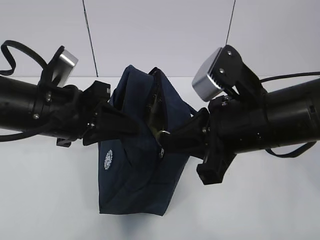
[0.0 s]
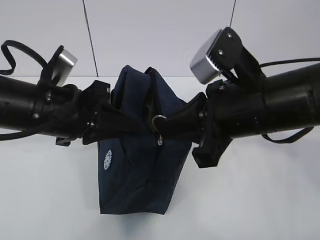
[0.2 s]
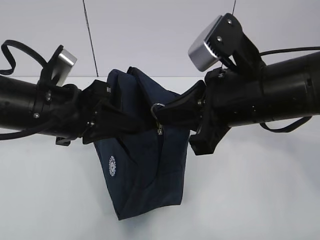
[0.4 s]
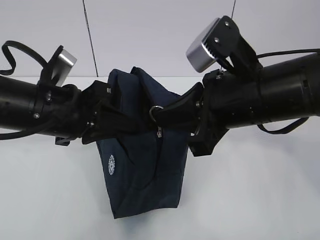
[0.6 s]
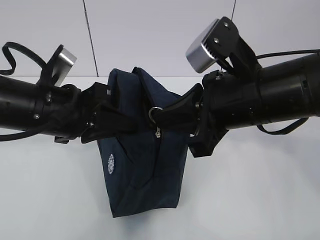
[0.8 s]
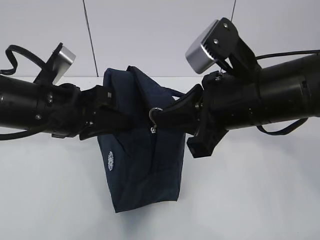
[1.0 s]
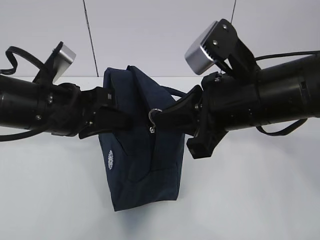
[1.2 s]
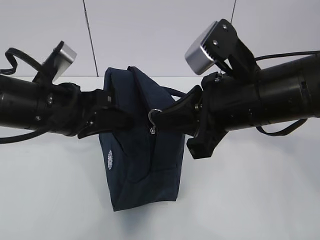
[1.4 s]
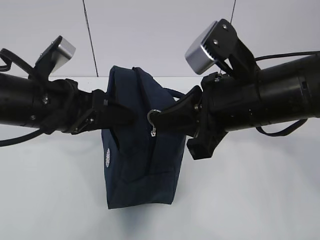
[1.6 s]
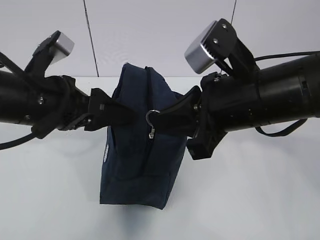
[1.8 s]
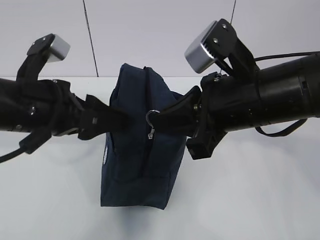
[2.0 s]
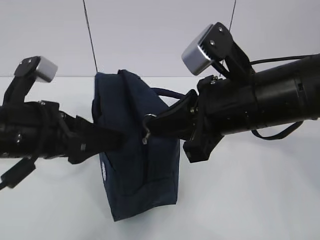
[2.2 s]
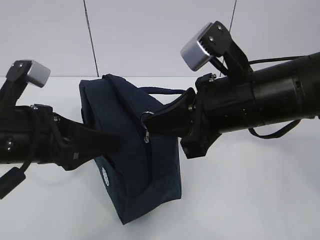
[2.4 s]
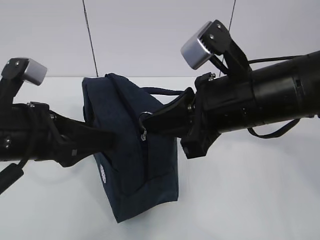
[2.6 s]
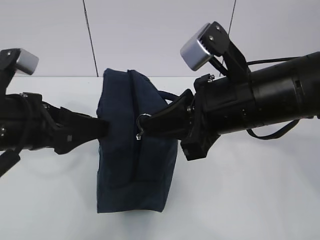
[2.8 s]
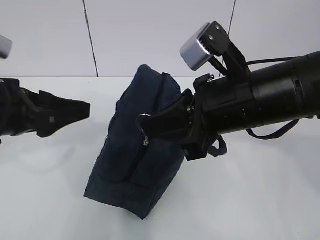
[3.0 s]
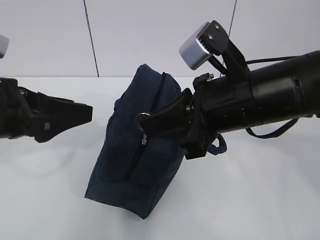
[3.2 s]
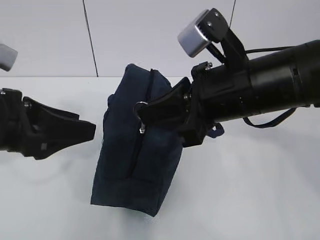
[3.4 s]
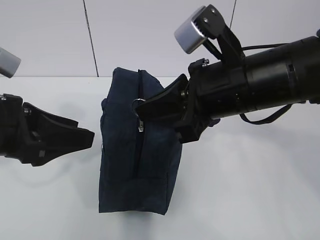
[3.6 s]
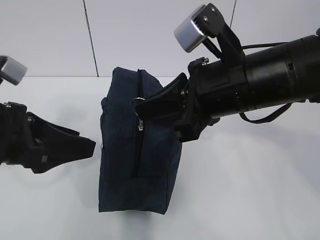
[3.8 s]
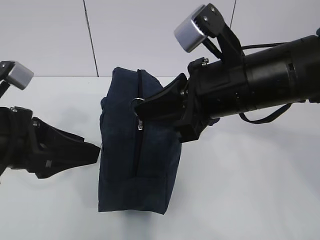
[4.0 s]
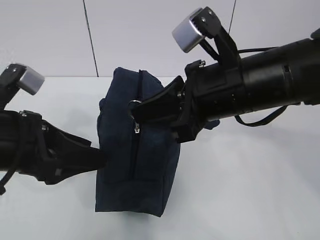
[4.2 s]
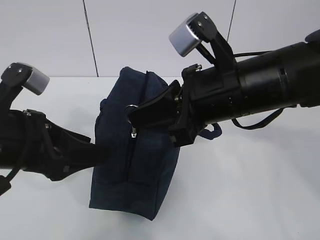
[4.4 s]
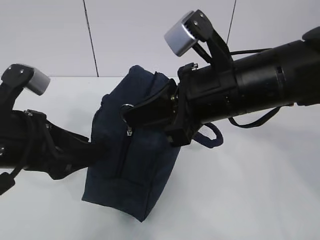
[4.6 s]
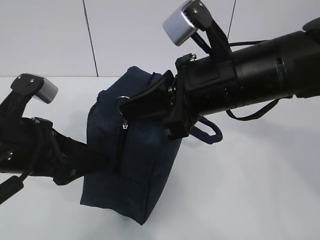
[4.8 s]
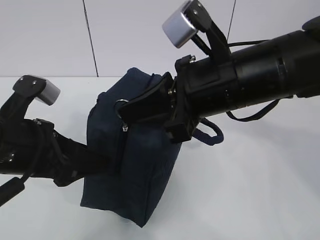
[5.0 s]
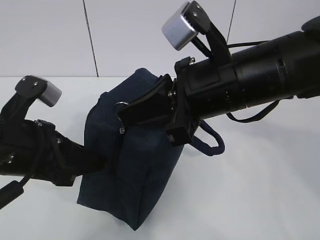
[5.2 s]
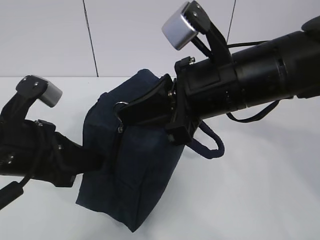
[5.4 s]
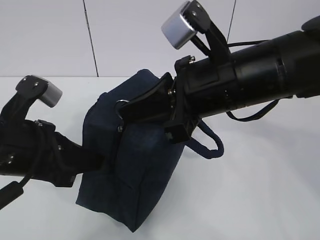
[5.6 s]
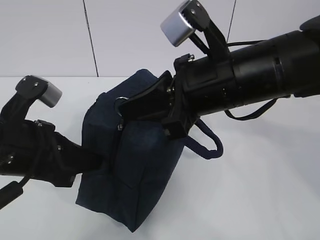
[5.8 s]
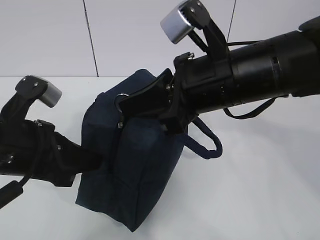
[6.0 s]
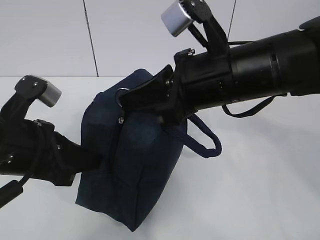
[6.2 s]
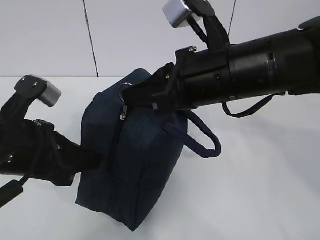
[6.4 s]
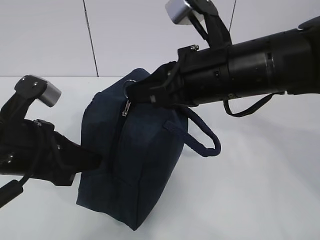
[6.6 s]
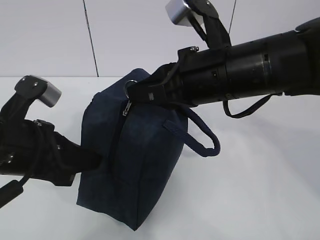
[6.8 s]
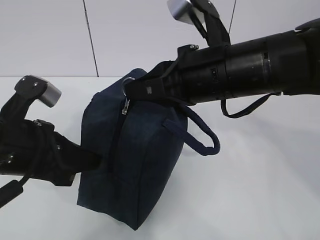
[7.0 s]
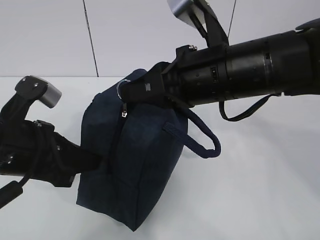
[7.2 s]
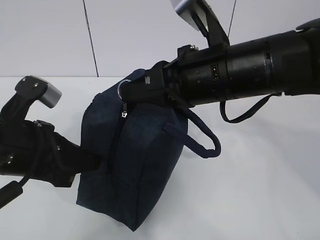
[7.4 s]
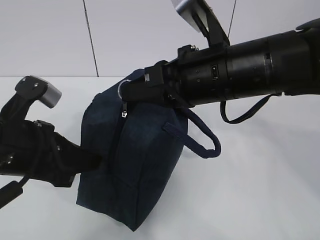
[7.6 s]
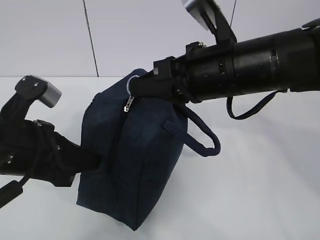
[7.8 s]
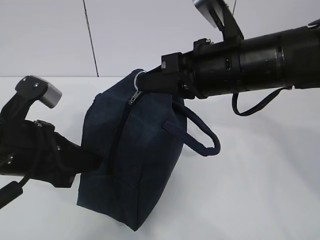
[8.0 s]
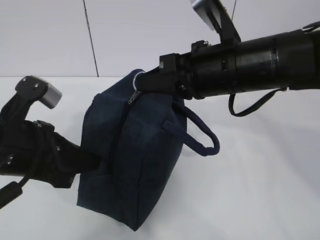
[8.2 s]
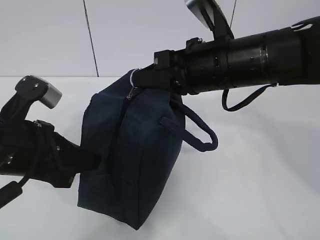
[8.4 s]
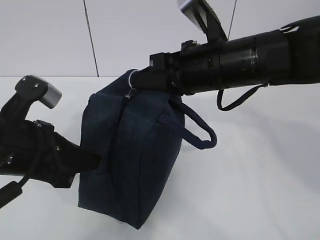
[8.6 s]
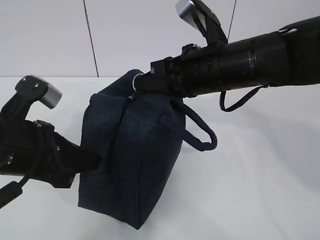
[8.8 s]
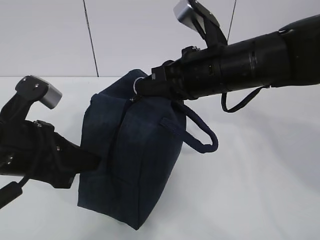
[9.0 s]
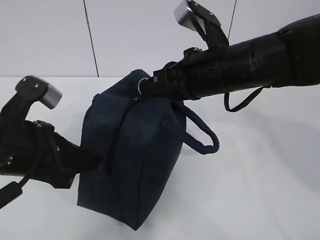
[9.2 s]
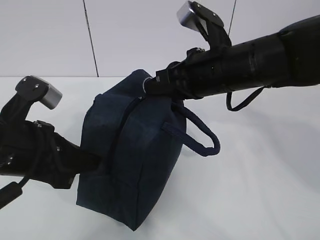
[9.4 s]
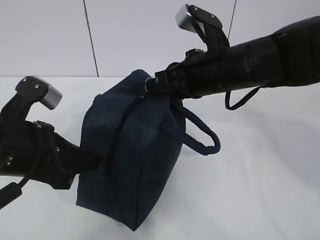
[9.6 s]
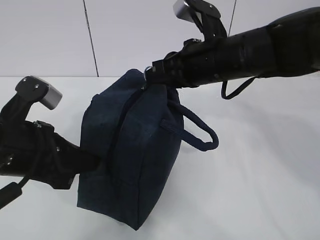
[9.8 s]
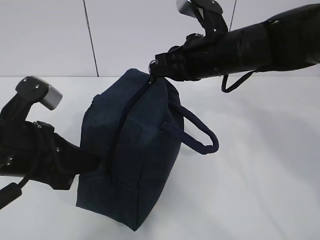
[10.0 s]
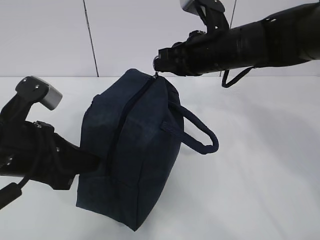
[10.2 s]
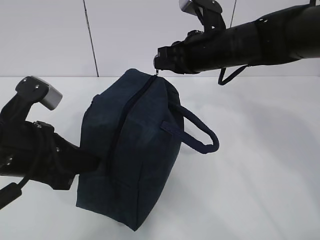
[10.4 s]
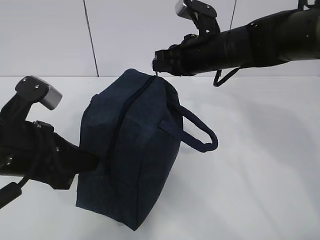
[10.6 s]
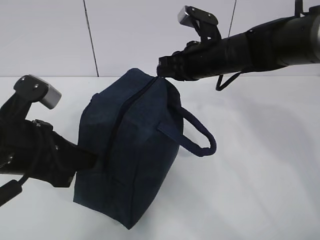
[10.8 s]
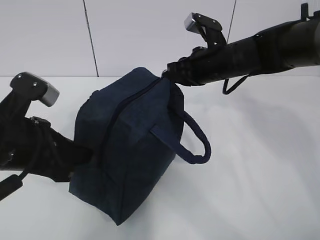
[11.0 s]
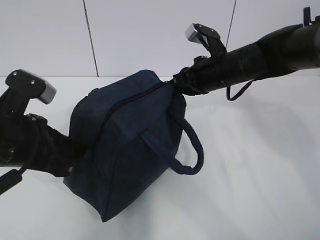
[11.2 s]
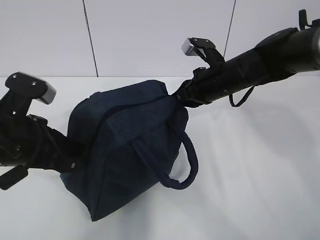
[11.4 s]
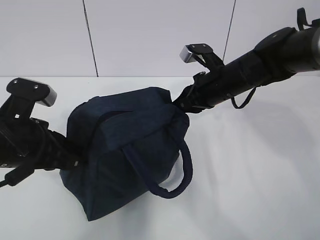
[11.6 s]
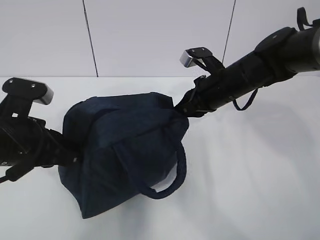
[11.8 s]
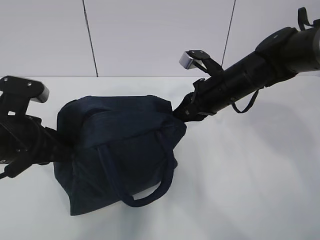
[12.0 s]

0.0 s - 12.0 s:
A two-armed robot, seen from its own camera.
Step, 0.0 s - 2.8 s: Pull the zipper with your right hand.
Step, 3.2 s - 3.6 s: Grab the lunch bag with your left hand.
0.0 s - 1.6 s: The left gripper opens its fingers.
1.6 s - 3.0 s: The left gripper goes approximately 5 cm to the left.
4.4 s - 6.0 s: The left gripper closes its fingers.
7.6 s - 9.0 s: The grippers stay close to where they were, moving slightly.
9.0 s - 10.4 s: The right gripper moves forward, approximately 10 cm.
10.4 s - 12.0 s: The right gripper moves downward, roughly 5 cm.

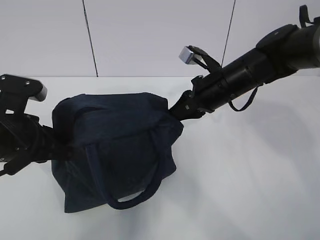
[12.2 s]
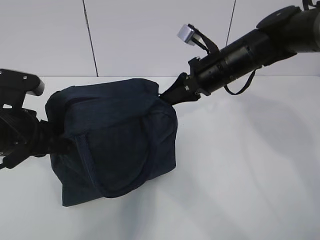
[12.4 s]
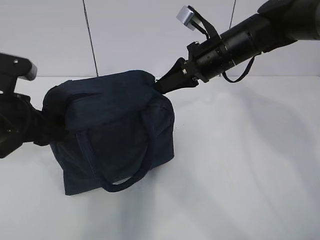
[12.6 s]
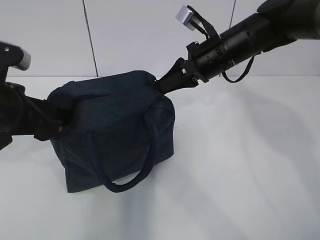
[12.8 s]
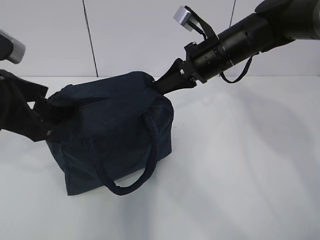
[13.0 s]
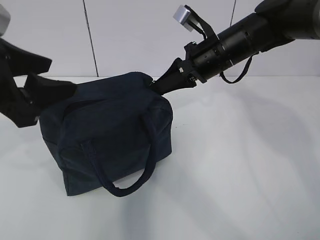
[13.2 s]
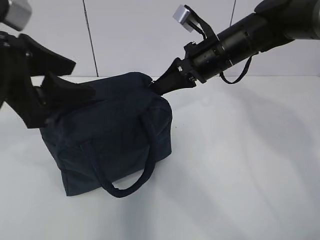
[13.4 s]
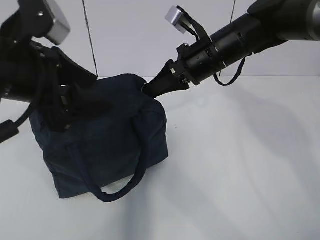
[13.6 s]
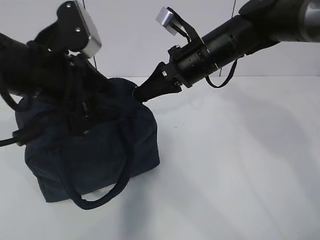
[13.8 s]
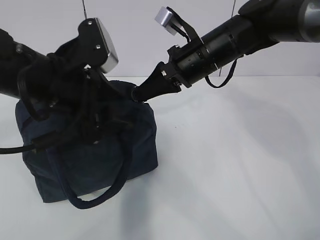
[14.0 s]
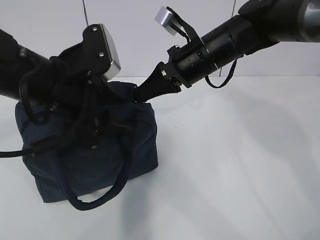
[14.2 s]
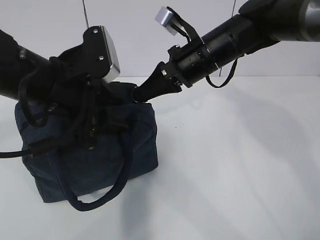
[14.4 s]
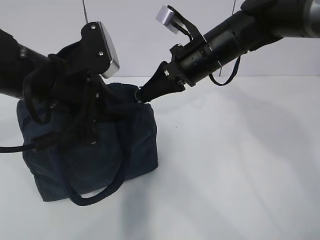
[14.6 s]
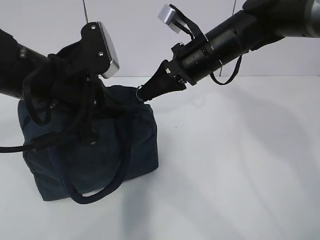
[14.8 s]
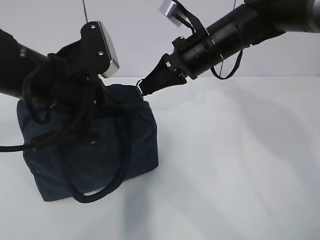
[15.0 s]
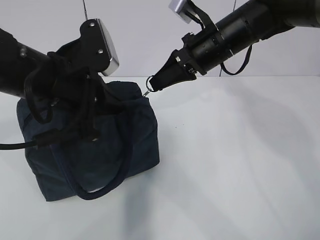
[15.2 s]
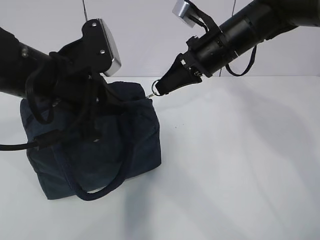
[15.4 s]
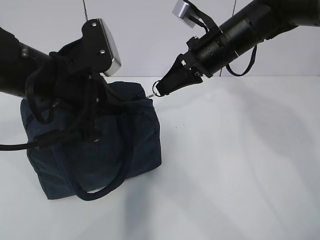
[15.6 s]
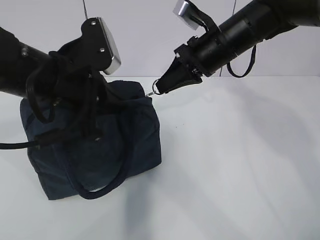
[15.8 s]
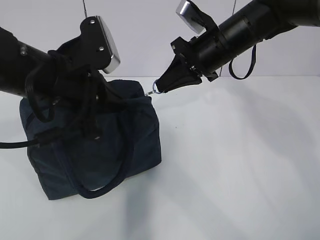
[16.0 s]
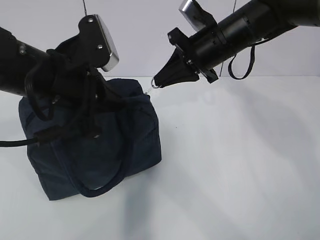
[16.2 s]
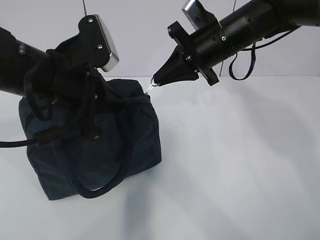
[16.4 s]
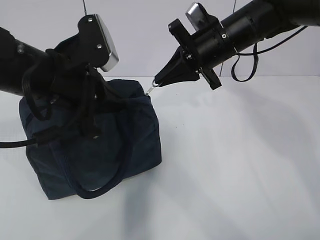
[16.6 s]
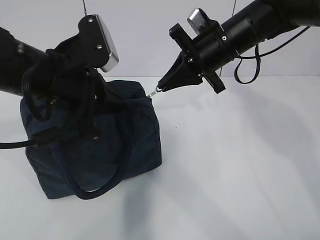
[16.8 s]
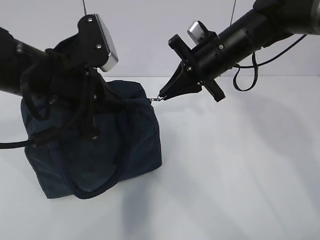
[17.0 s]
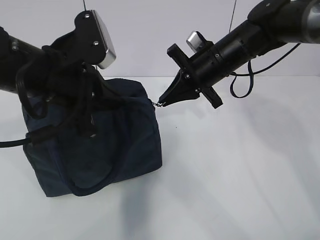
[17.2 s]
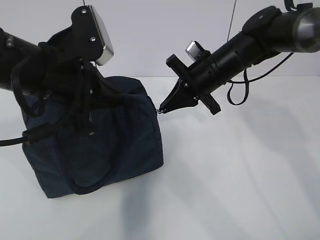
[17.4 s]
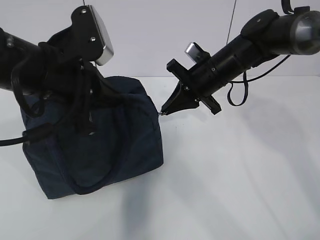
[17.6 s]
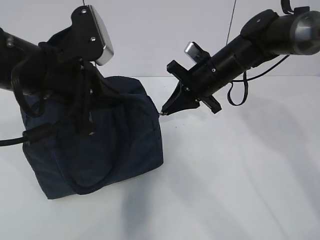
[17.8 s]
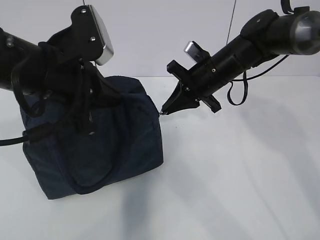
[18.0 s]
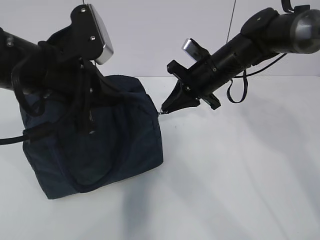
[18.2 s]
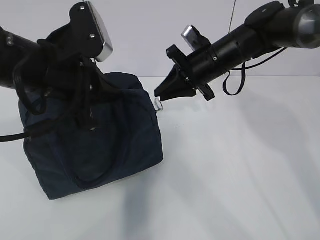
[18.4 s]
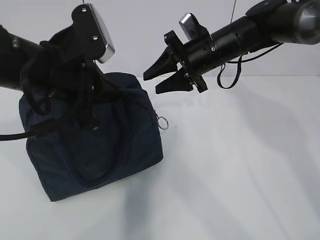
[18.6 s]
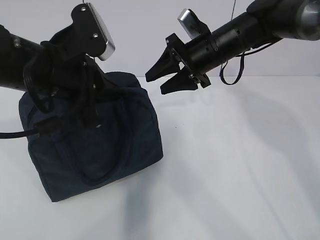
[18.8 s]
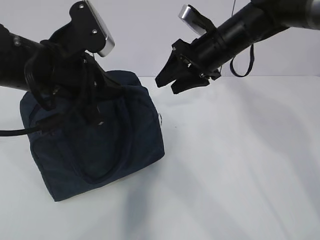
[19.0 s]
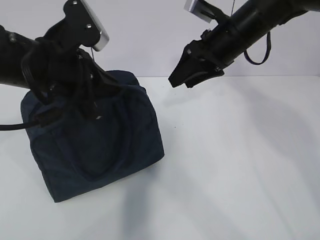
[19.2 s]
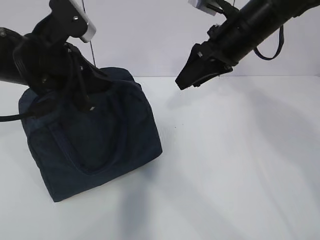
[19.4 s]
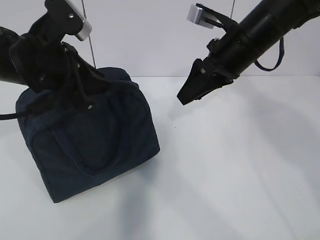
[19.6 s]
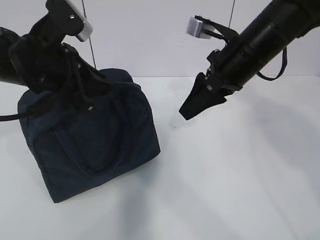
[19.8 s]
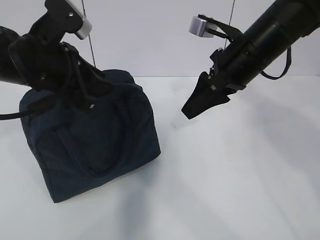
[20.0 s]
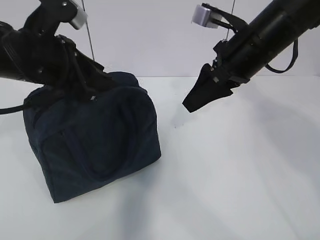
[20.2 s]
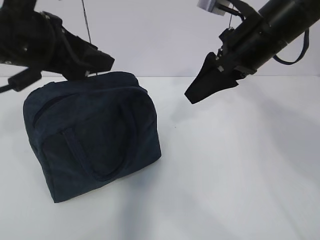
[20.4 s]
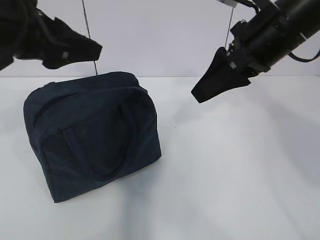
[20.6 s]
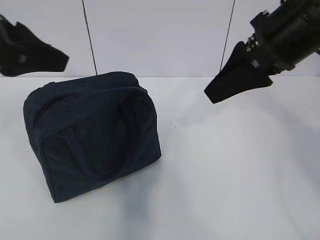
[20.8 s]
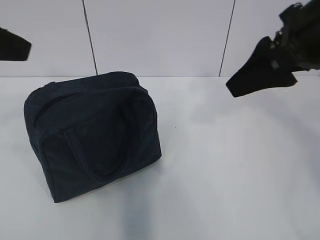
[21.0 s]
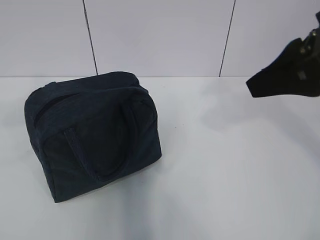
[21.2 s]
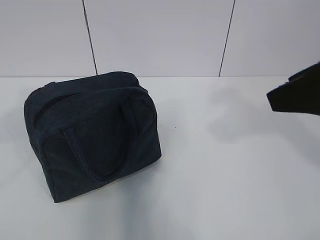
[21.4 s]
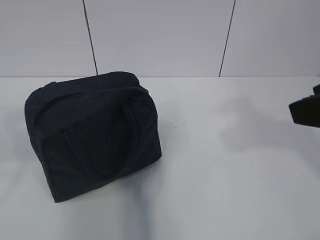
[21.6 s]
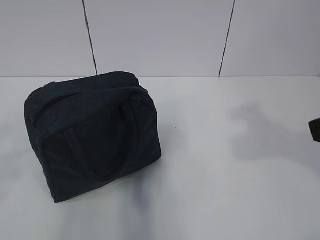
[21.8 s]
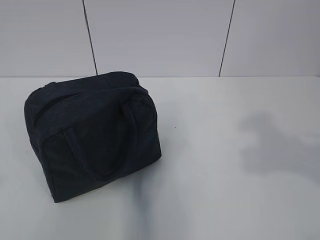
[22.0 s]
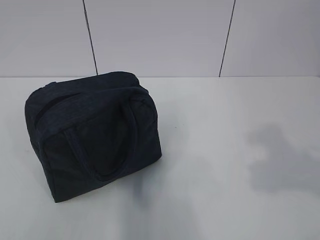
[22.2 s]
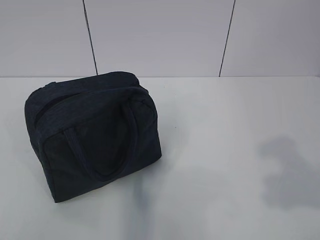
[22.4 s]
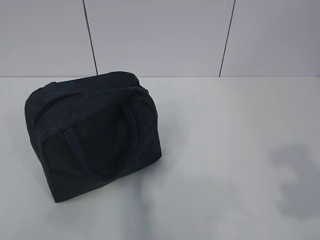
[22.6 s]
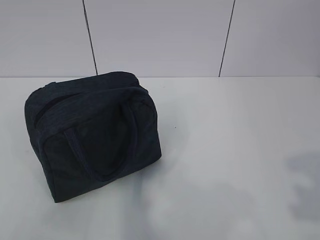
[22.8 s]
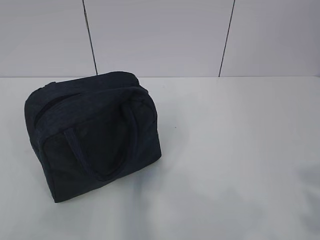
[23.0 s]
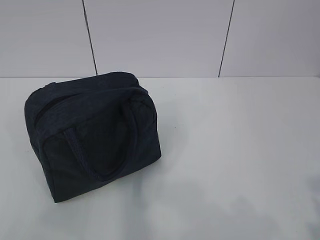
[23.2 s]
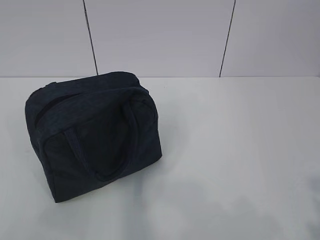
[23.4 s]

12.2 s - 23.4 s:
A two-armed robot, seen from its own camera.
12.2 s - 13.8 s: The left gripper travels upward and to the right by about 10 cm, and opens its fingers. Meanwhile the right gripper heads upward, covering approximately 5 cm.
13.8 s - 15.4 s: The left gripper closes up.
17.0 s - 18.6 s: The right gripper opens its fingers.
18.6 s - 20.2 s: The left gripper opens up, while the right gripper travels backward and upward by approximately 10 cm.
20.2 s - 21.8 s: The left gripper shifts some 25 cm backward and to the left. The right gripper shifts some 20 cm backward.
21.8 s - 23.4 s: The right gripper shifts roughly 15 cm backward, to the right and downward; the left gripper travels backward and downward by roughly 10 cm.
